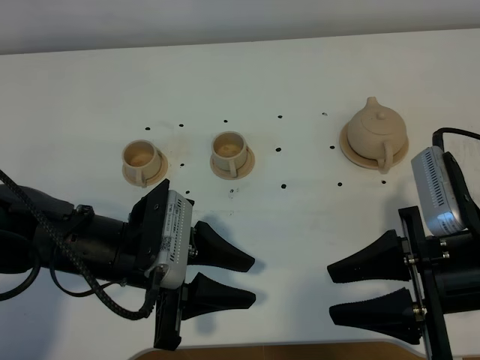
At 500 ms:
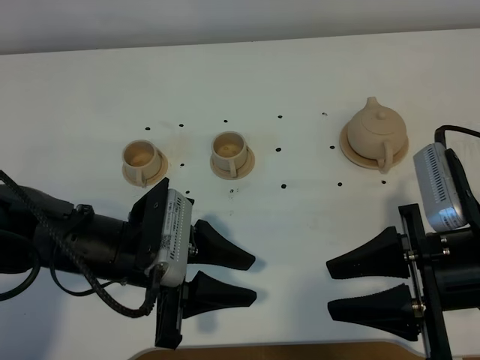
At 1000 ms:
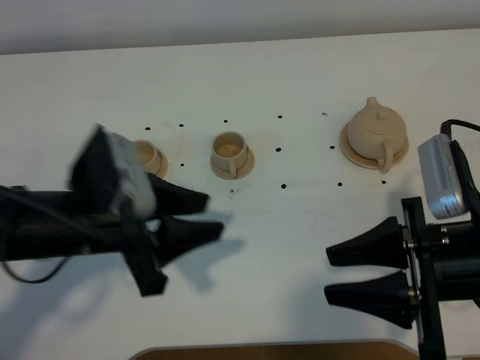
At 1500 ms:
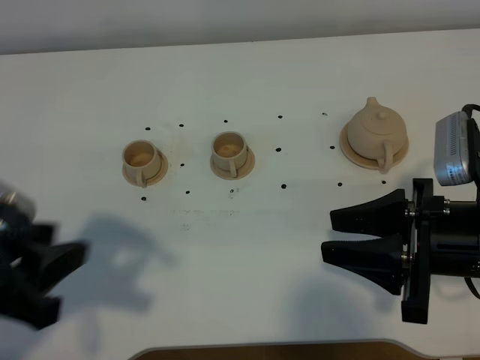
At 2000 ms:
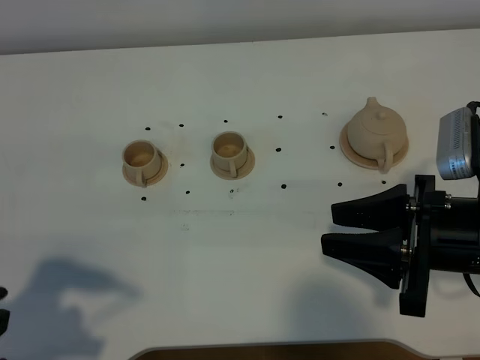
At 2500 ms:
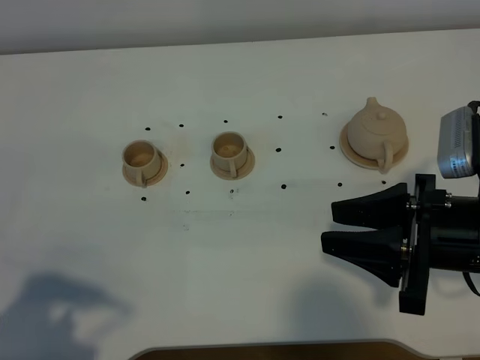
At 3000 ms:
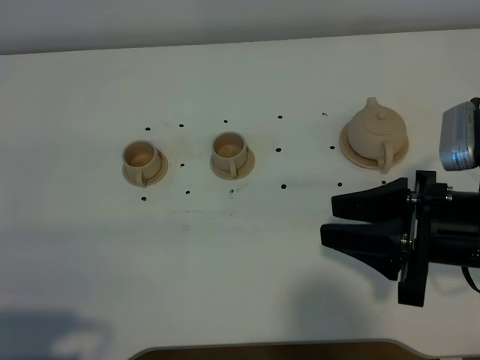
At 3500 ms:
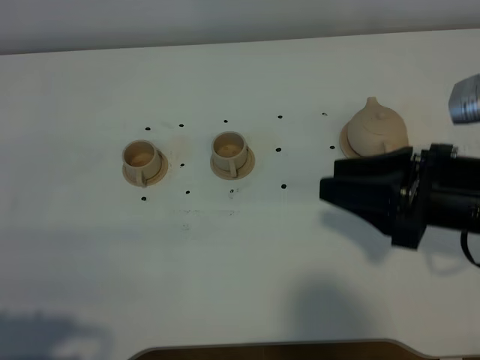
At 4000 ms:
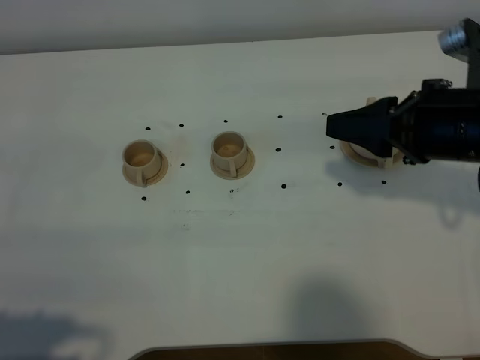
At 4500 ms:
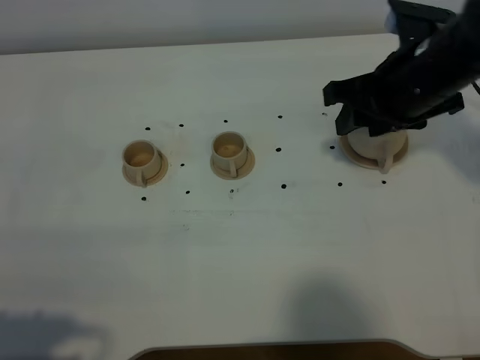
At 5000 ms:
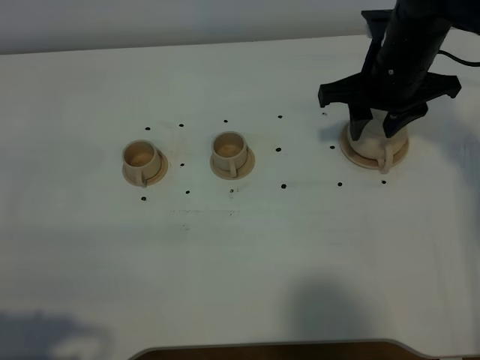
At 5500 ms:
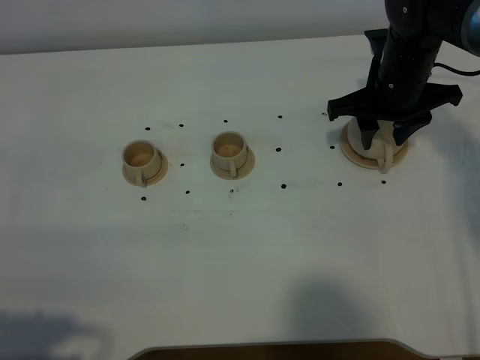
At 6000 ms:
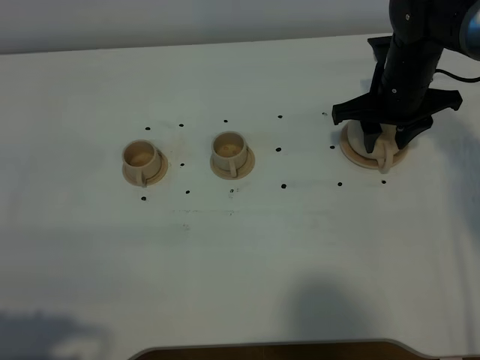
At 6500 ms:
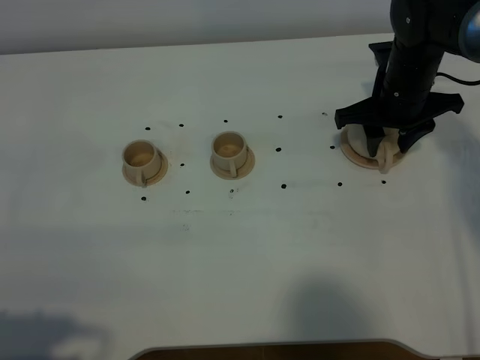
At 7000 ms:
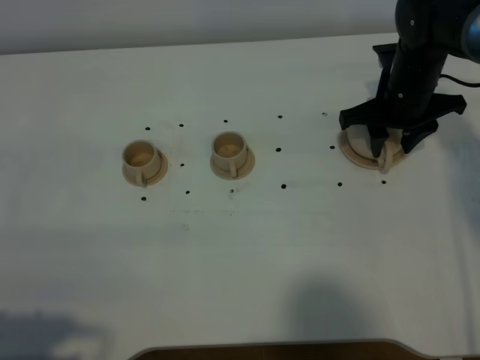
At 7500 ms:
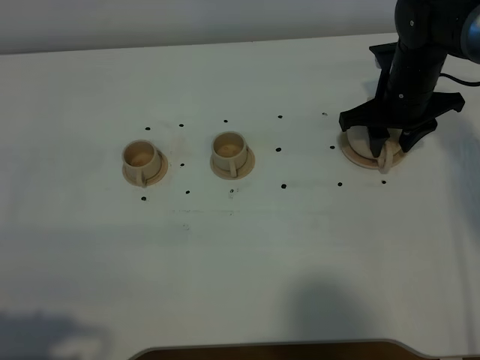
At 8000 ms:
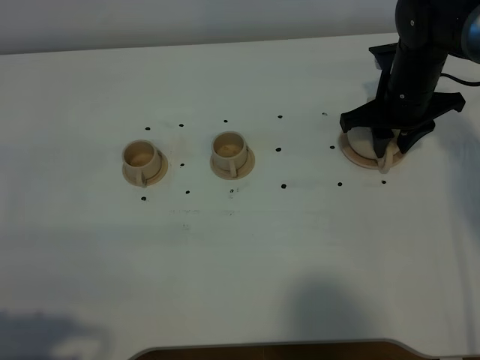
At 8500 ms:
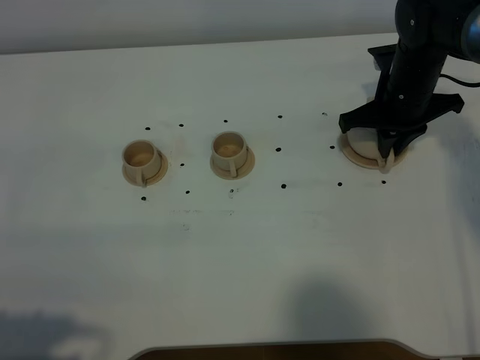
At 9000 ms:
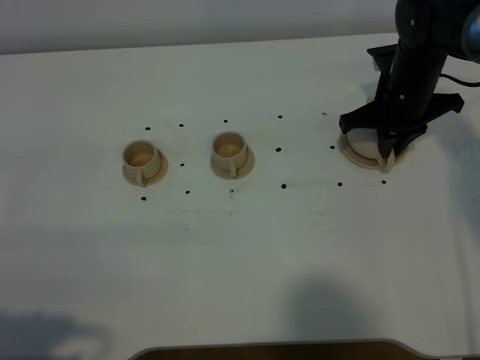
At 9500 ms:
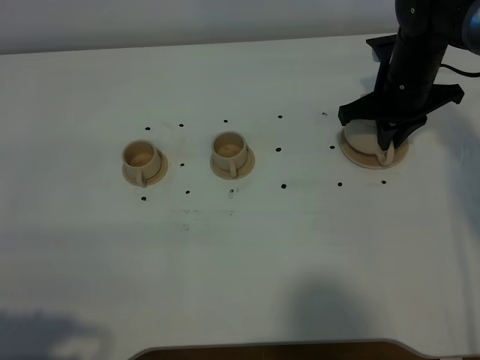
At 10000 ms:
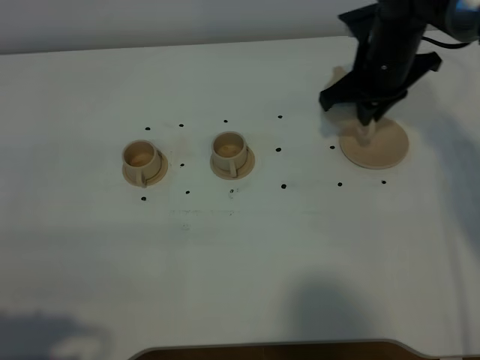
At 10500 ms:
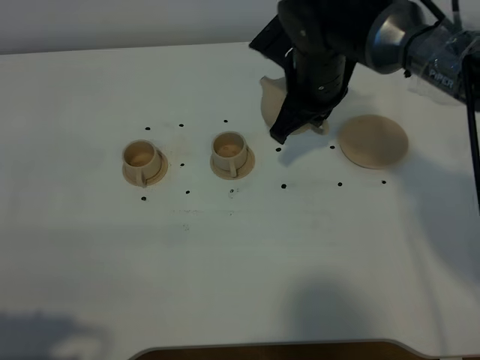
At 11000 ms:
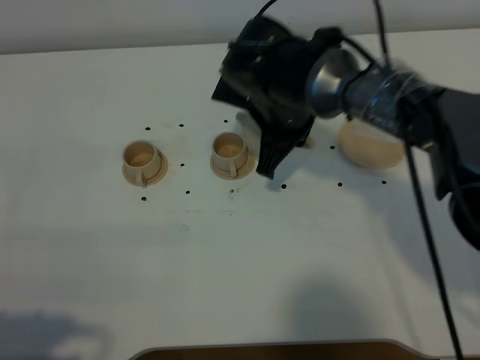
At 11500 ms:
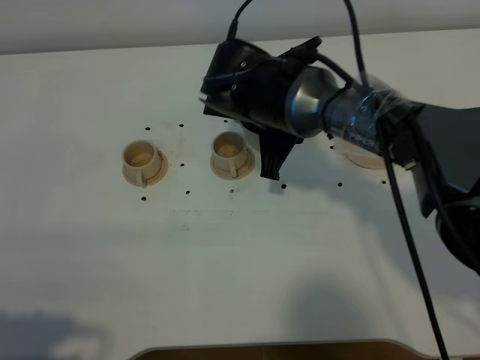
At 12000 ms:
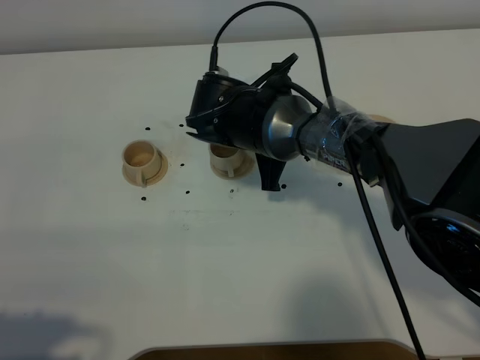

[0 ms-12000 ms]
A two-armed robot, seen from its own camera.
Task of the whole recording: grasp the brown teapot and pour the tea into the two brown teacups one by one, put the brown teapot back in its original place.
Step, 0 ms to 9500 ms: Pick up the teapot with the right gripper.
0 ms to 2000 ms: The left gripper travels to the left, backward and upward by some 20 cm.
2000 ms to 4000 ms: The left gripper travels backward by some 5 cm; the right gripper shifts roughly 10 cm forward.
4000 ms to 6000 ms: The right gripper heads forward and downward, covering approximately 20 cm.
6000 ms to 8000 ms: The grippers move only a little.
8000 ms to 10000 ms: The right gripper ends up about 5 cm from where it was, and closes up.
10000 ms to 12000 ms: The right gripper moves to the left, about 15 cm.

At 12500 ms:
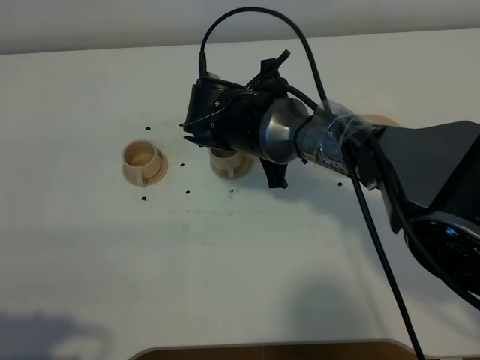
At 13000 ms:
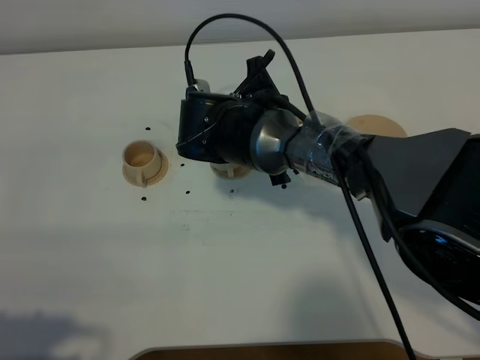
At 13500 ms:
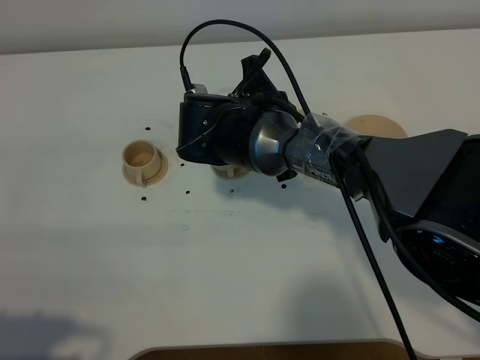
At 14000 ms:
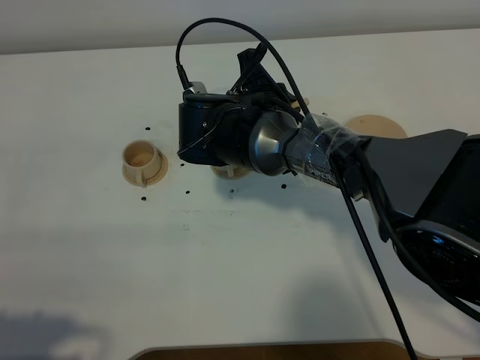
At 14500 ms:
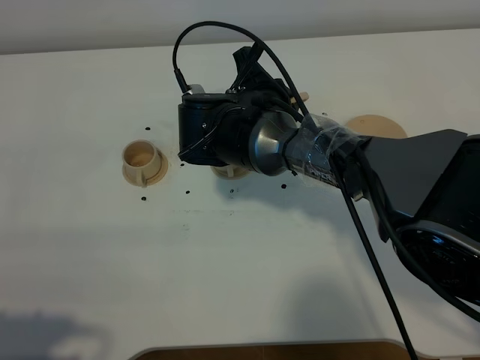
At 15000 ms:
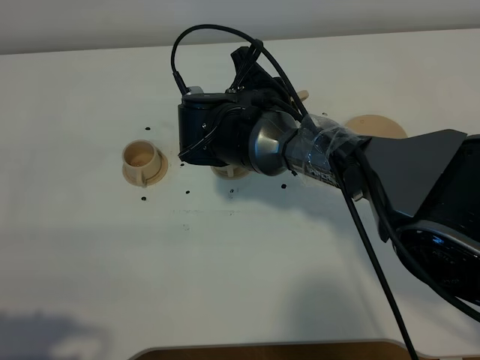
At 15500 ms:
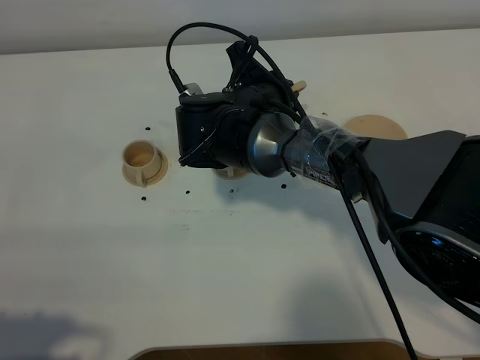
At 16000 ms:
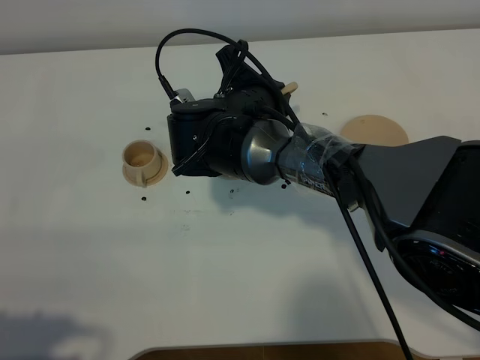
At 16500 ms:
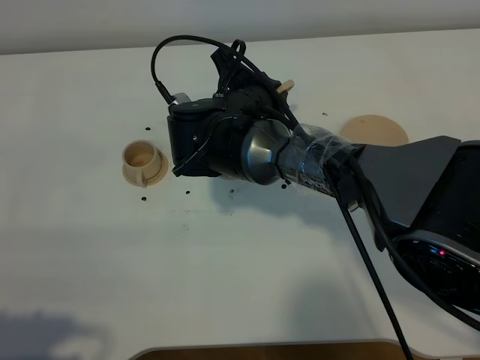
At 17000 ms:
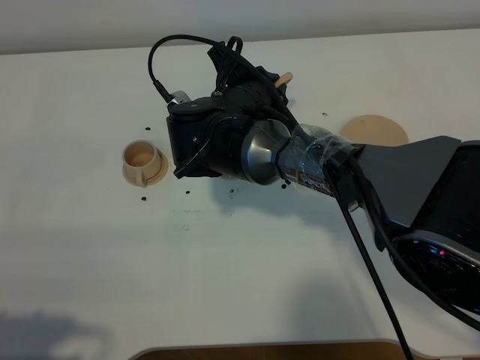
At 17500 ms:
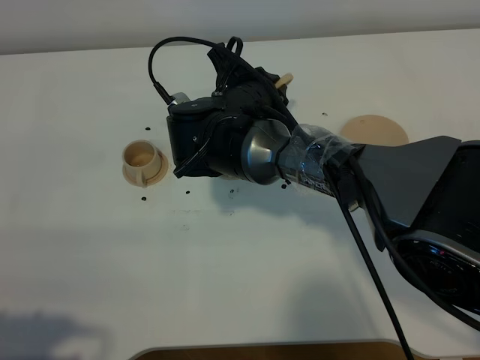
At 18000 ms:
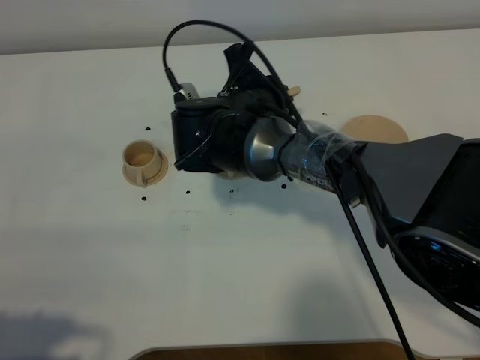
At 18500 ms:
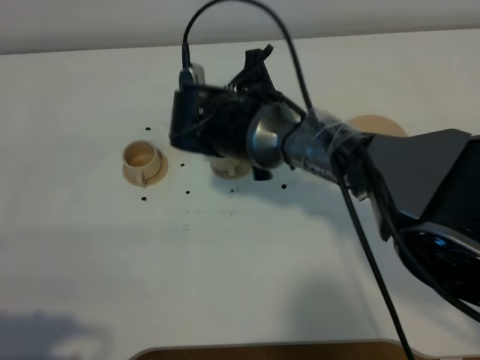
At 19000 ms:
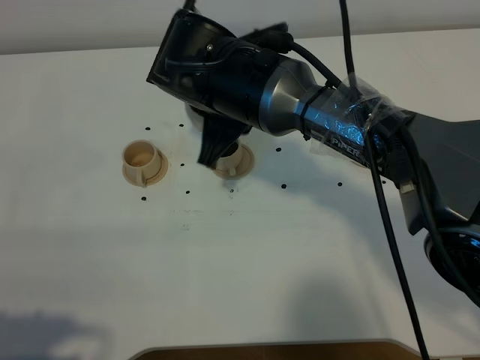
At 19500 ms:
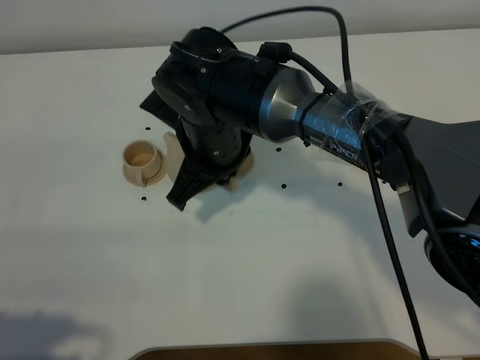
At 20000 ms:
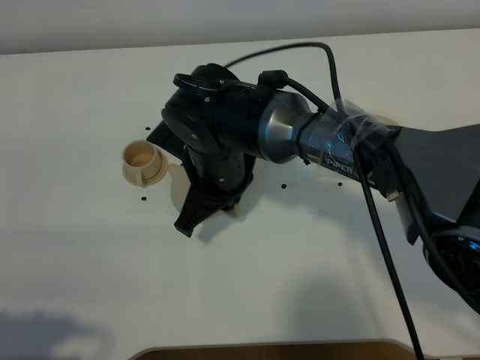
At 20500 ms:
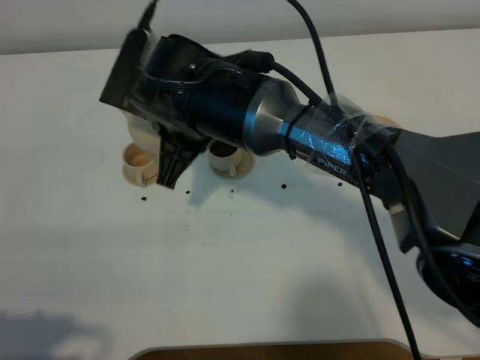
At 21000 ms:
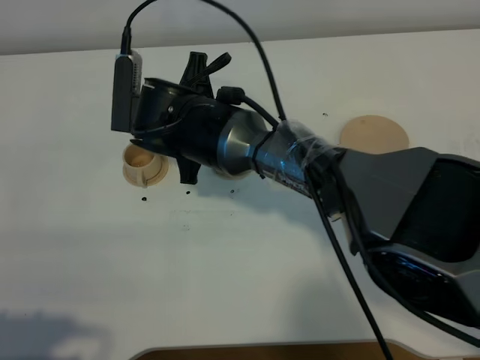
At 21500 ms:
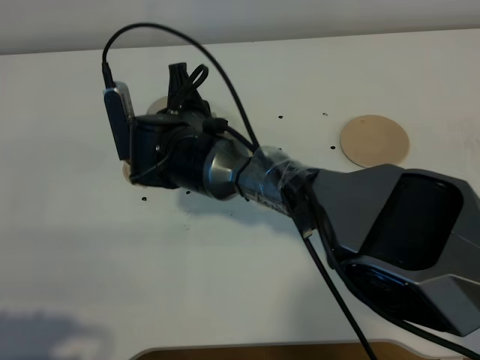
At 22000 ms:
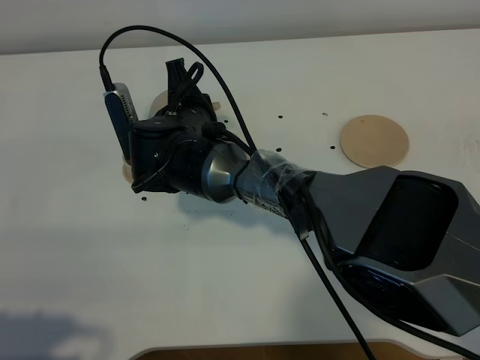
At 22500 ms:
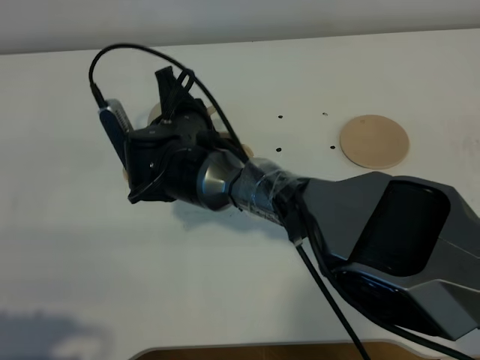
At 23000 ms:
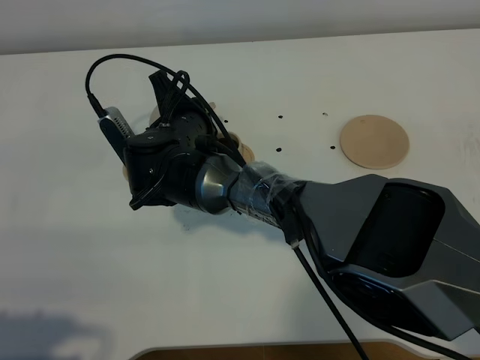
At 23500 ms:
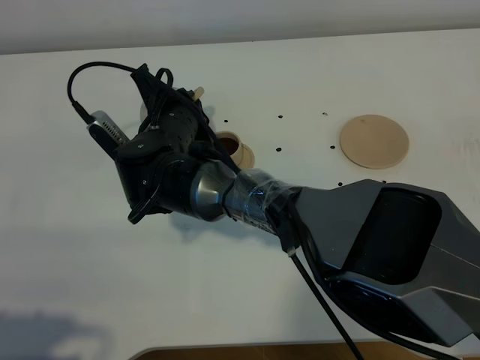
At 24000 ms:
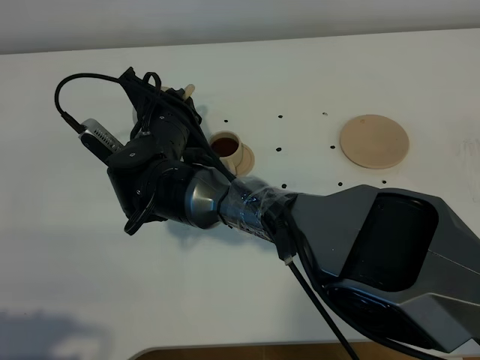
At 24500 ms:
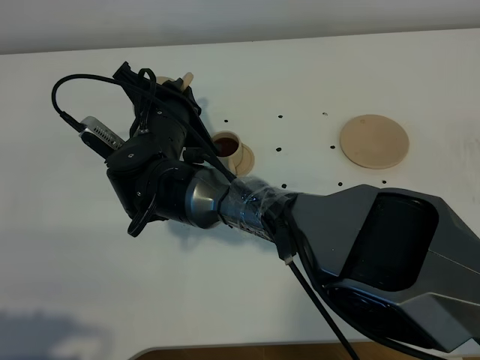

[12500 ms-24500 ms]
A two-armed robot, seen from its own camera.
Task of the whole recording: grasp the brown teapot and pour the tea into the two brown teacups one by one, put the brown teapot back in its original place.
Step, 12500 ms to 18500 ms: Pour tea into the teacup with the right gripper.
14500 ms to 16500 ms: The grippers move only a little.
18500 ms to 20500 ms: The right gripper goes roughly 5 cm to the left.
20500 ms to 22500 ms: The right gripper is displaced downward by roughly 10 cm.

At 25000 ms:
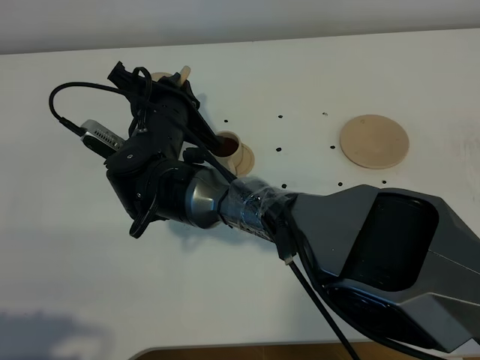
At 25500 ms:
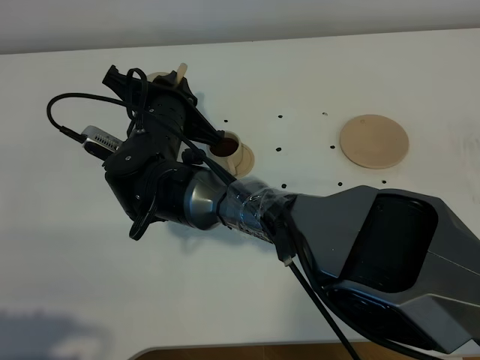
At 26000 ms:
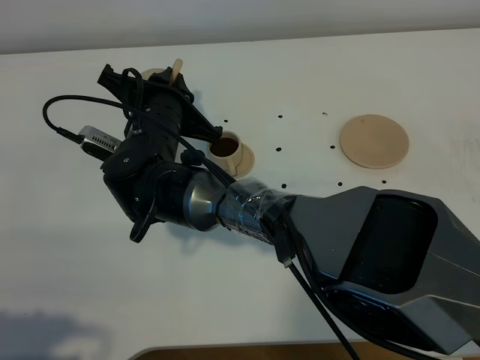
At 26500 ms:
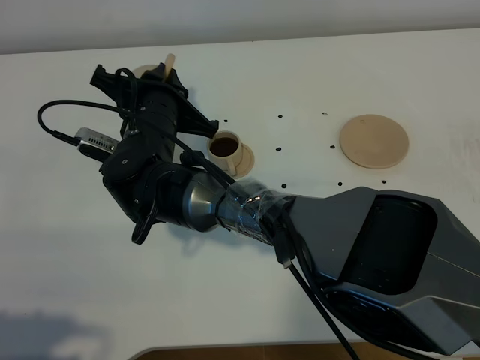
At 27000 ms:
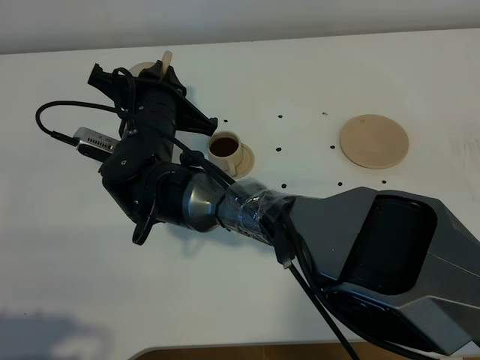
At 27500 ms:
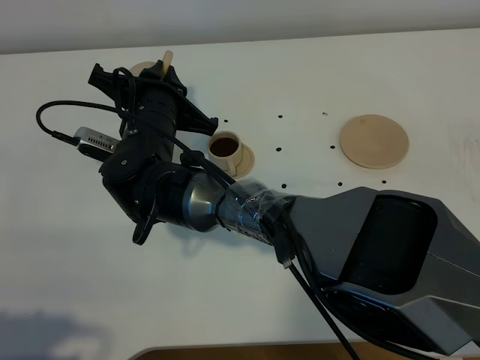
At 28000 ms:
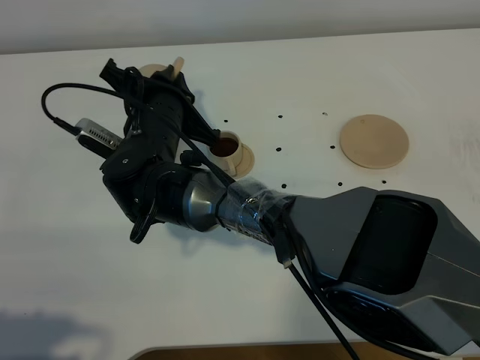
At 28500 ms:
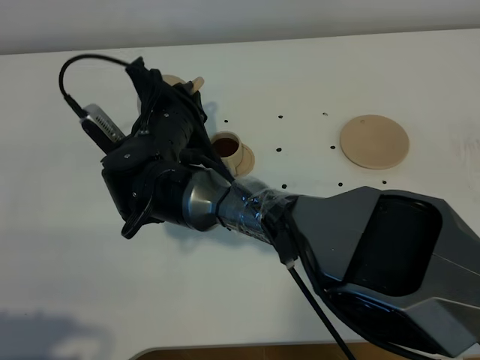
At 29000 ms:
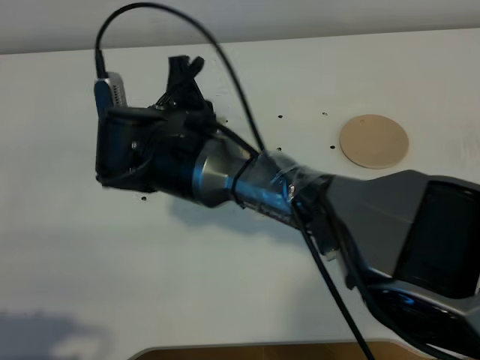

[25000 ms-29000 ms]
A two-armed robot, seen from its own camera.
Task of the whole recording: grasp the brown teapot and pour the tea into the two brown teacups one by one, put the brown teapot back in its original place.
Step, 25000 ms to 28500 ms: Pour tea into the teacup with the right gripper.
25000 ms to 27000 ms: The grippers move only a little.
27000 ms to 29000 ms: The right gripper changes place by about 5 cm.
